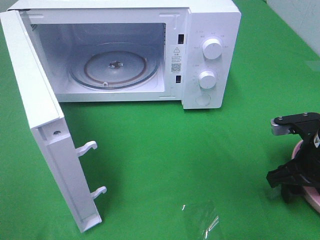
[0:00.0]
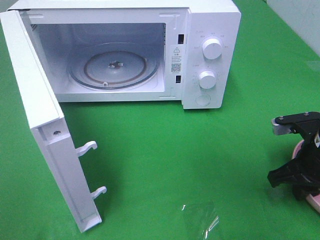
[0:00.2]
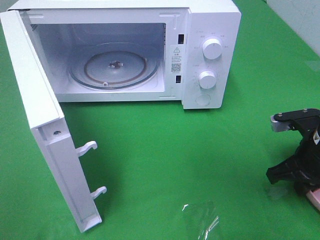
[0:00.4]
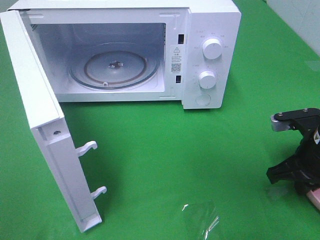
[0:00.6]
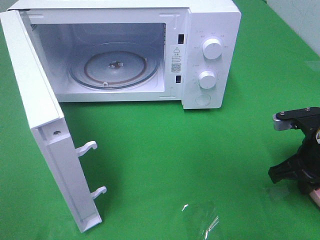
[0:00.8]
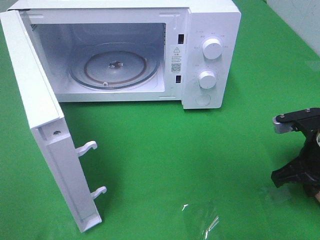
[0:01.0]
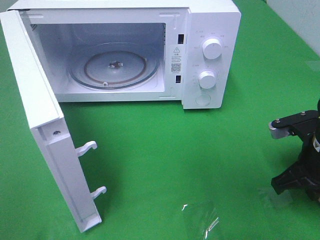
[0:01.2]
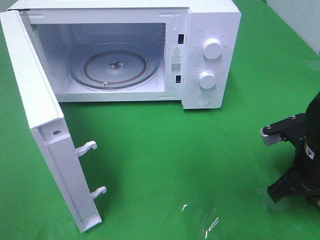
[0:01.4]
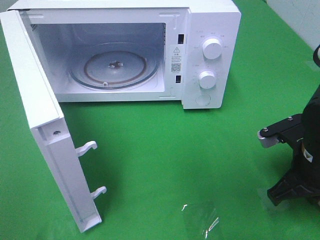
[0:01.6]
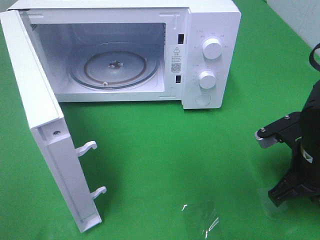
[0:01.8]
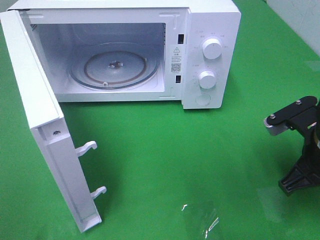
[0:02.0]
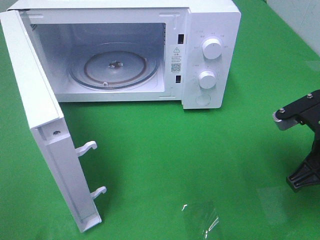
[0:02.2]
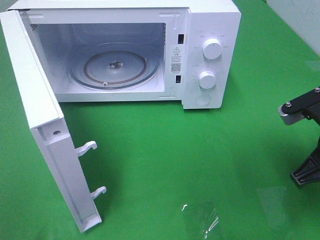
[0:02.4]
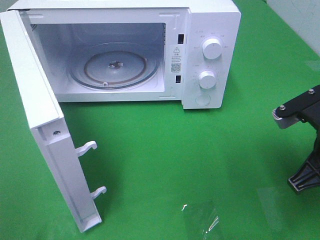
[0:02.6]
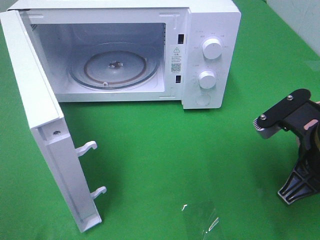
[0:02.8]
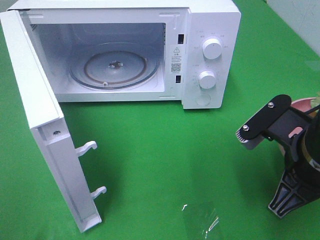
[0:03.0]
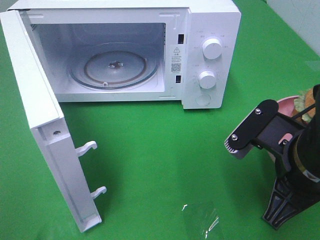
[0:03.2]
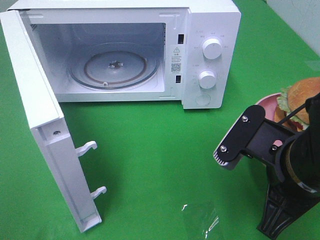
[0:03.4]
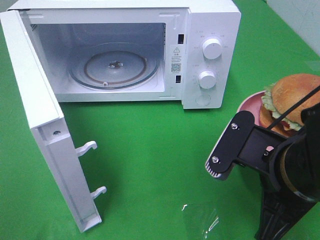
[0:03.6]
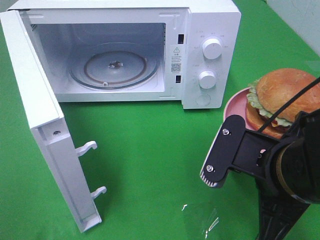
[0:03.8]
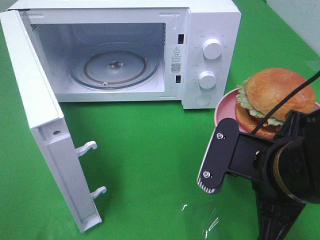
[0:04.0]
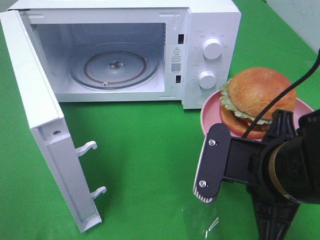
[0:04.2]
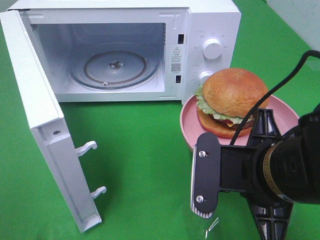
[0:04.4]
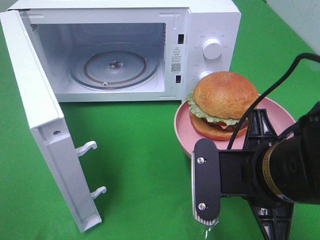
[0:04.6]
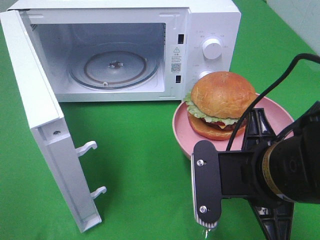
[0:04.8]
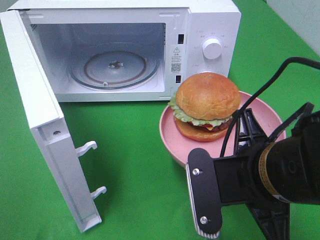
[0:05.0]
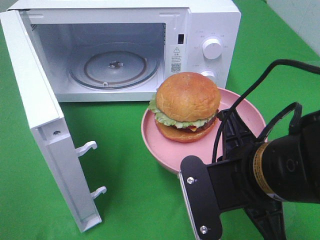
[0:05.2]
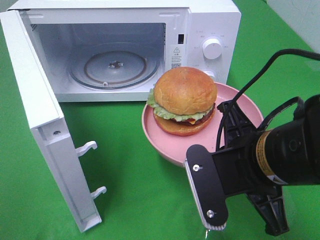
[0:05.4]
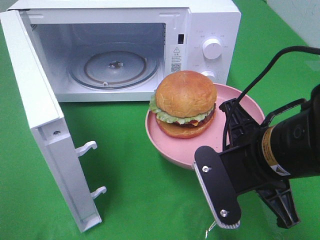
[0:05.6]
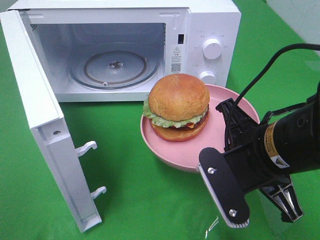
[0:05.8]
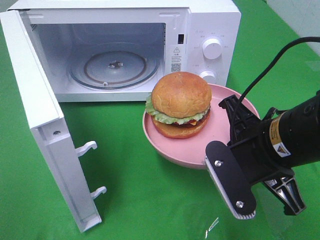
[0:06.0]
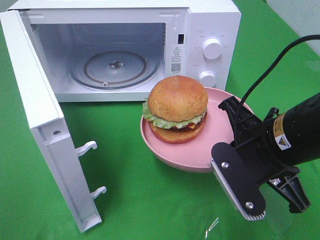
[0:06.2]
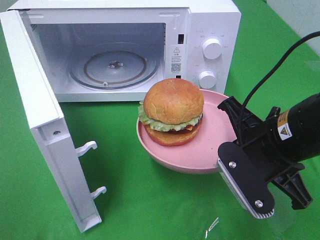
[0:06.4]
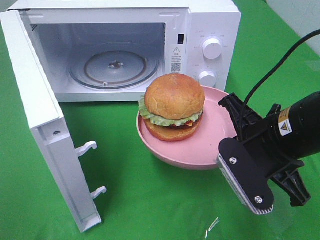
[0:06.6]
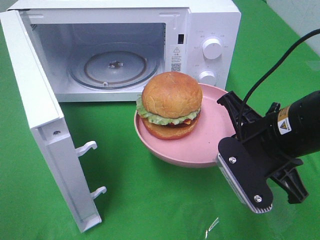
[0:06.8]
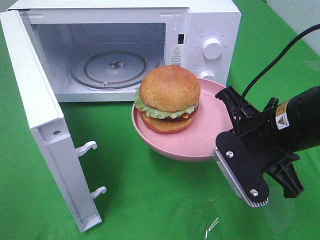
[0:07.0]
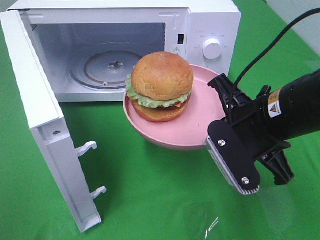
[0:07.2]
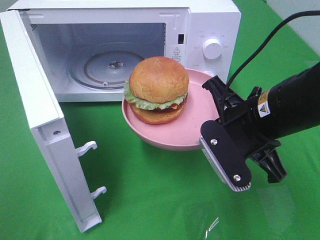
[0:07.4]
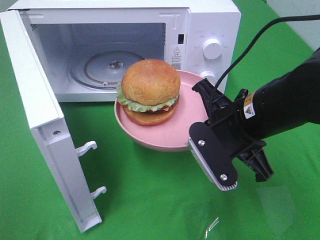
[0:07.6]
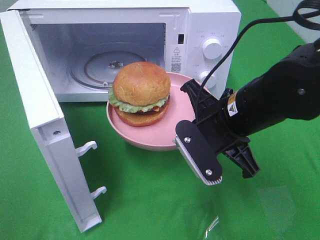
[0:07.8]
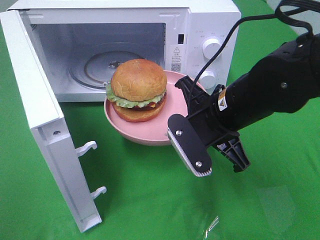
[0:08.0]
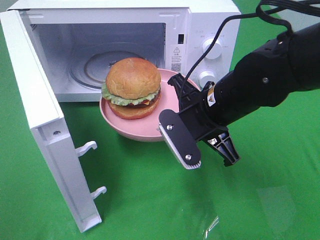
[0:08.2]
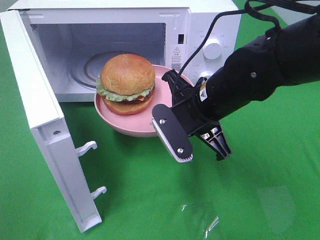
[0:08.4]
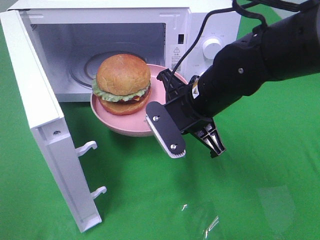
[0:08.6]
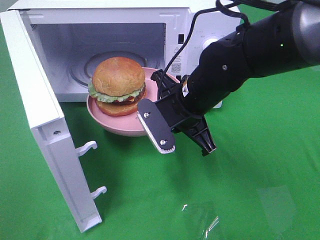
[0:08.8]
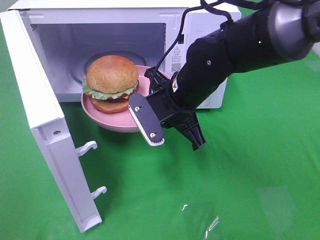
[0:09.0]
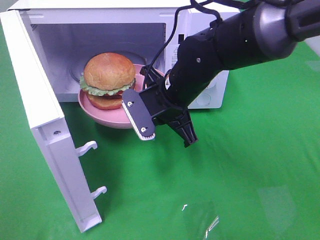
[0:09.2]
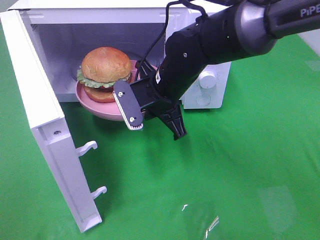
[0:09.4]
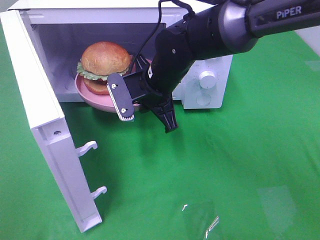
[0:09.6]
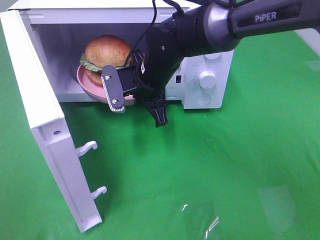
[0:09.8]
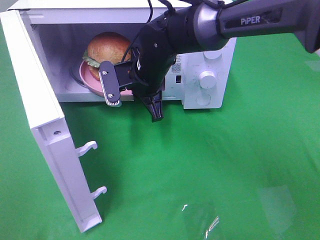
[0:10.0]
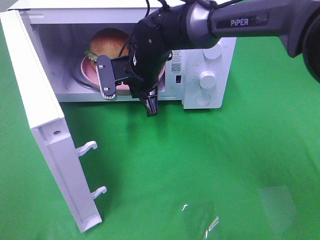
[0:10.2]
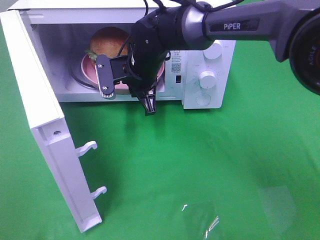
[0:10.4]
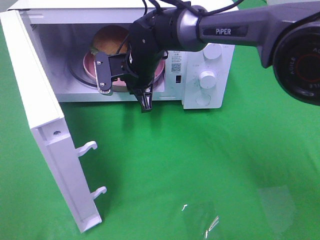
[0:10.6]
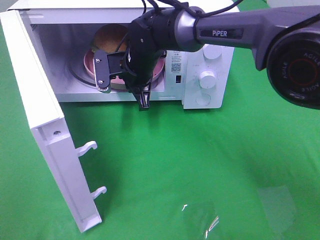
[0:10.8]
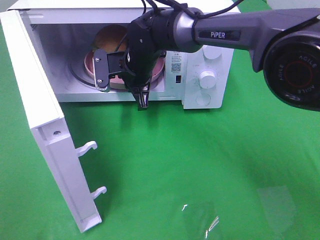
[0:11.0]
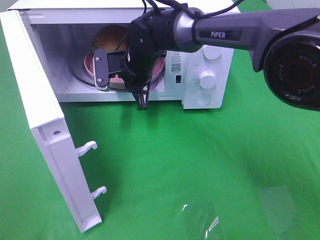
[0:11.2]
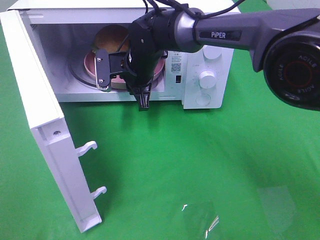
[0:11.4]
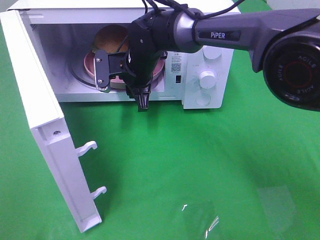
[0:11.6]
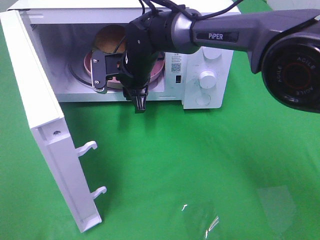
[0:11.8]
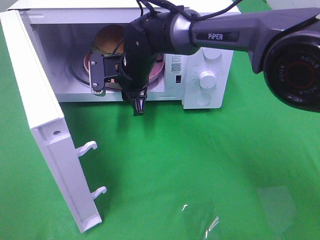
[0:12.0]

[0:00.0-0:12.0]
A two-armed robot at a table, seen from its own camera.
Task of the whole recording: Heat the burger.
0:00.0 to 0:01.6: The right gripper closes up.
0:01.6 to 0:03.0: The right gripper moves upward, roughly 5 cm.
0:03.0 to 0:04.4: The right gripper is displaced to the left by approximately 5 cm.
0:07.6 to 0:09.0: The right gripper goes some 10 cm forward and to the left.
0:09.0 to 0:10.4: The right gripper moves forward and to the left, roughly 10 cm.
0:10.4 to 0:12.0: The right gripper opens its fingers.

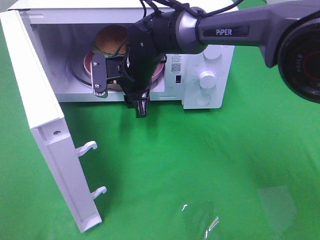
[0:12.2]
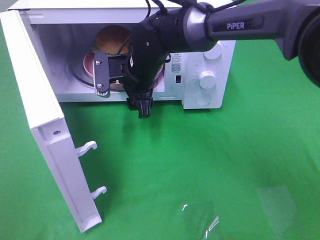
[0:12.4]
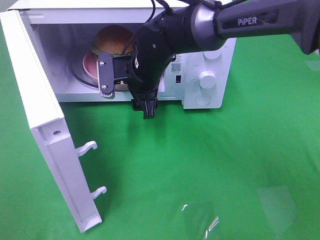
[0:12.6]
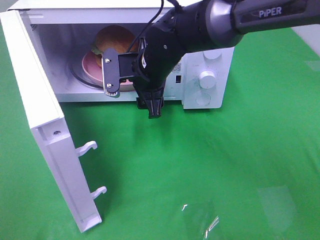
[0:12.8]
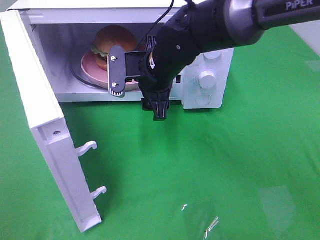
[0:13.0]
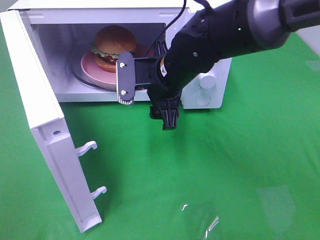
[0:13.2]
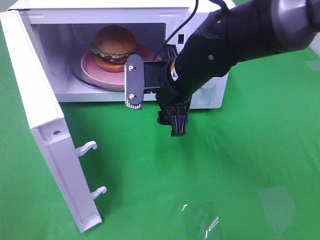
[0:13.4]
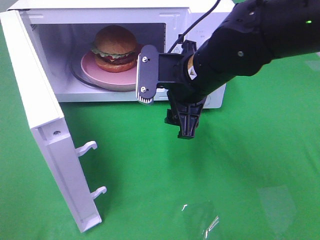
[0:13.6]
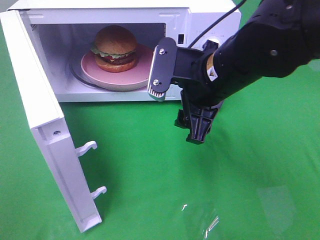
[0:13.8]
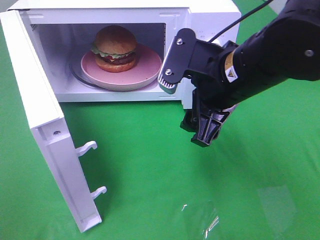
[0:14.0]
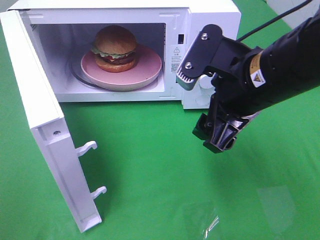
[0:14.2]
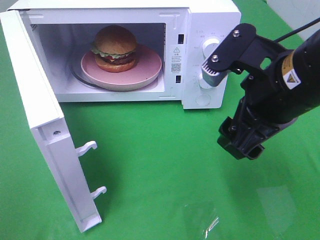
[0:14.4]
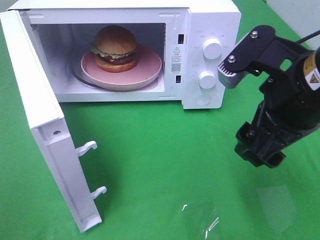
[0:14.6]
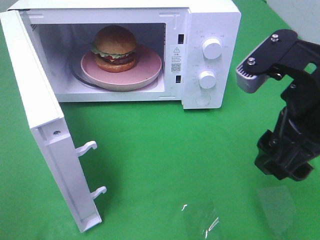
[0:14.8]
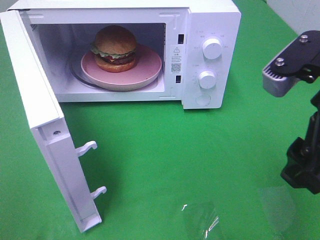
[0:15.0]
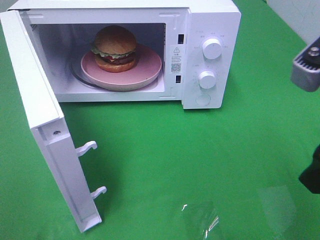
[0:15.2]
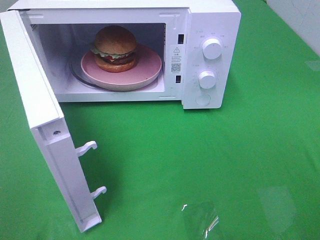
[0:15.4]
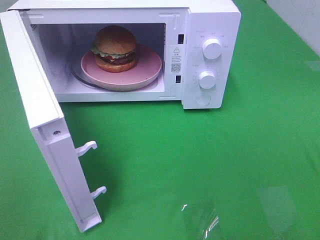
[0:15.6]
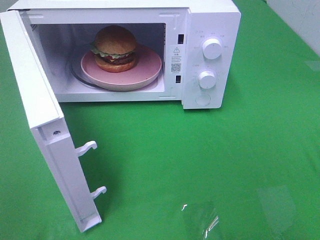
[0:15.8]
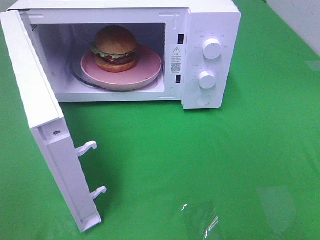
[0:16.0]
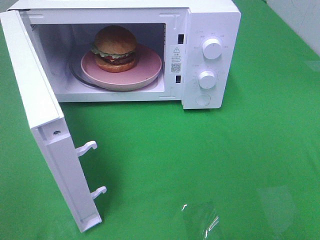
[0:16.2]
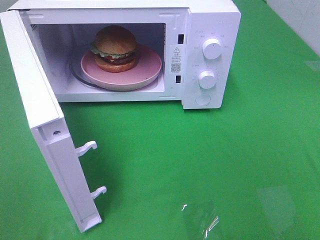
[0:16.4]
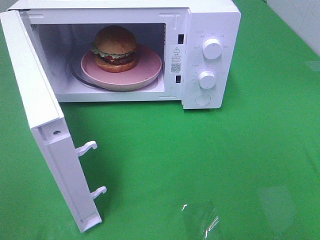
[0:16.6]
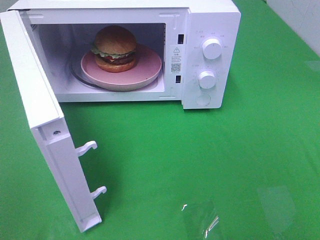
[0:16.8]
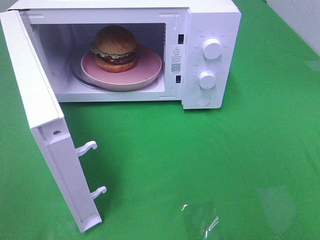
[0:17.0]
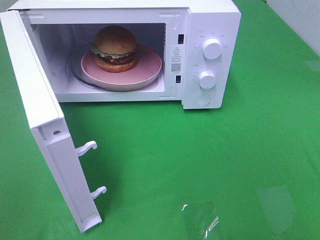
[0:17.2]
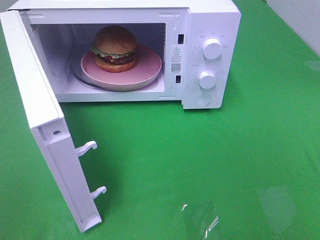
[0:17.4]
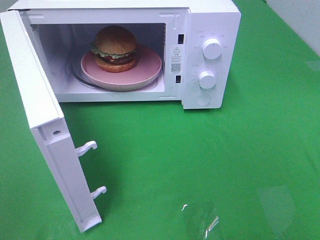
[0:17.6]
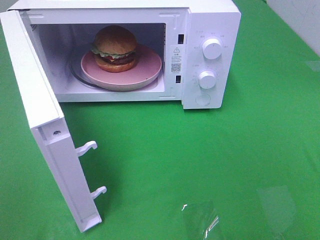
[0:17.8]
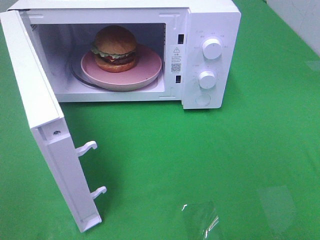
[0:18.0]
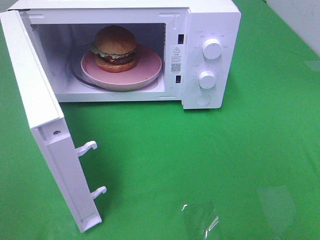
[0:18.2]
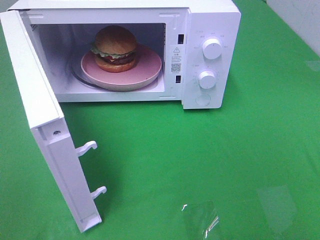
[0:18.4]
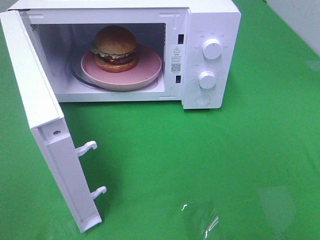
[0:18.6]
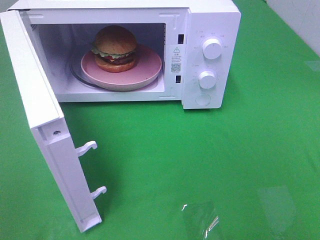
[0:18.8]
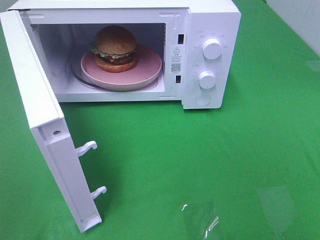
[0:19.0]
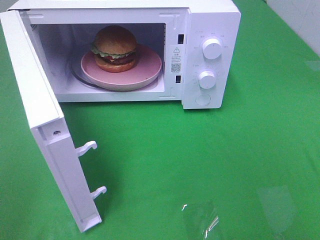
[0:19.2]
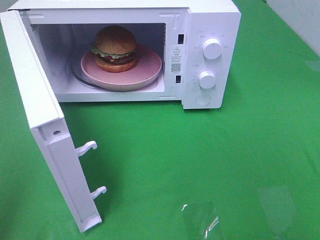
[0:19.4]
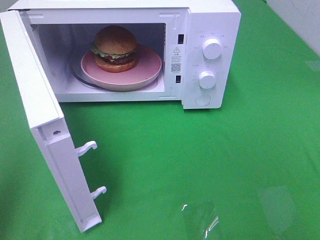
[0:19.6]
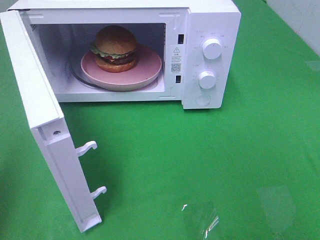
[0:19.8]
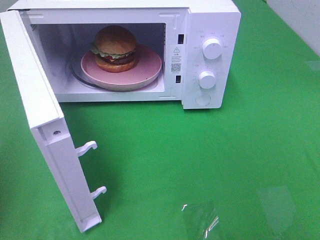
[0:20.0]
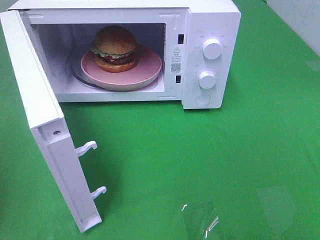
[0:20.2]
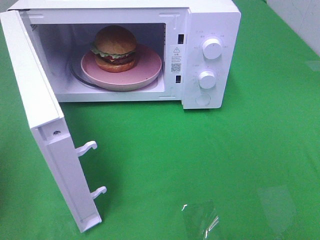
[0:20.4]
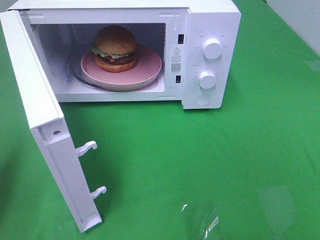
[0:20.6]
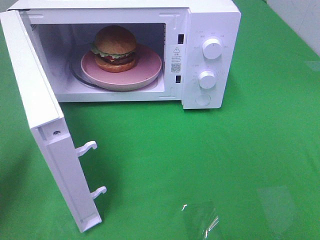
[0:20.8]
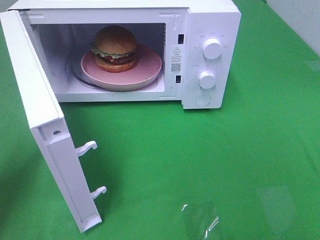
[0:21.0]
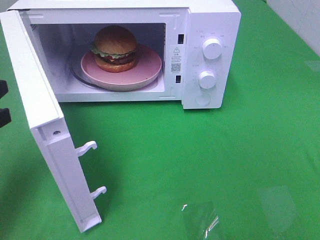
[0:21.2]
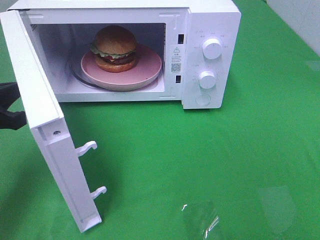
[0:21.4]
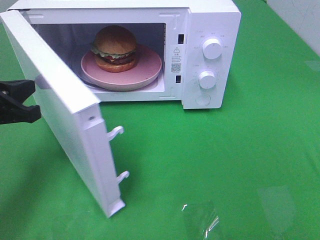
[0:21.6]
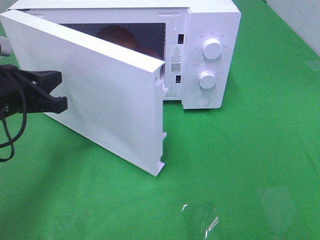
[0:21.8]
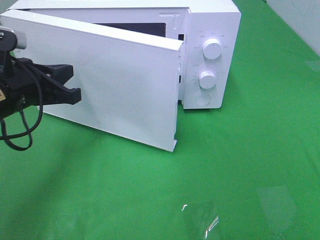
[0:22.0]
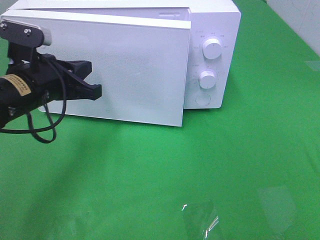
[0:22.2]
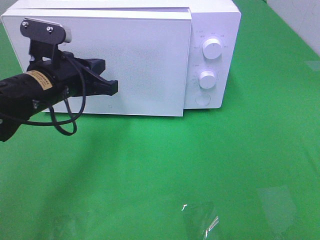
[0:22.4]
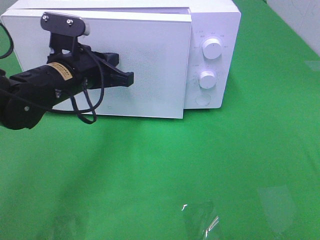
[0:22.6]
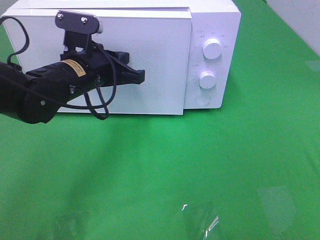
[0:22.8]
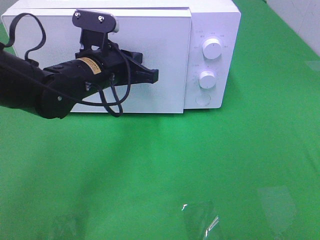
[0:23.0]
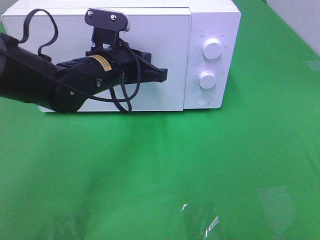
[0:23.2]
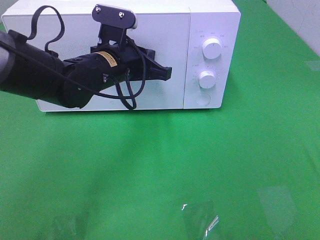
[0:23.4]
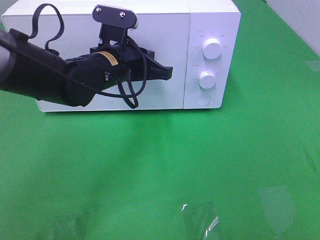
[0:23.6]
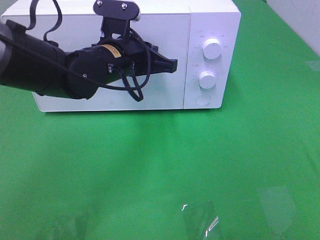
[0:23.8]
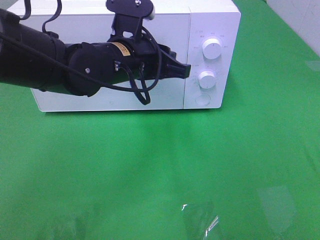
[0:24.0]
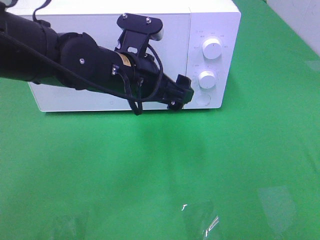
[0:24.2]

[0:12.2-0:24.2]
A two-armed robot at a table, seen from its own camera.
Task of the whole recording: Heat the burger.
Step, 0:12.6 to 0:23.8: Left hand: close the microwave door.
0:12.2 to 0:13.8: The right gripper shifts approximately 20 cm backward, to the right and upward.
0:13.8 to 0:15.2: The right gripper heads backward, to the right and upward, covering some 20 cm.
0:15.2 to 0:16.6: The right gripper goes some 15 cm backward and to the right.
0:18.2 to 0:19.8: The left gripper moves forward, some 10 cm, and closes its fingers.
0:19.8 to 0:21.2: The left gripper heads downward and forward, covering about 15 cm.
0:21.2 to 0:22.6: The left gripper shifts about 20 cm to the right and forward.
0:22.6 to 0:24.2: The left gripper is displaced to the right by approximately 10 cm, and opens its fingers.
